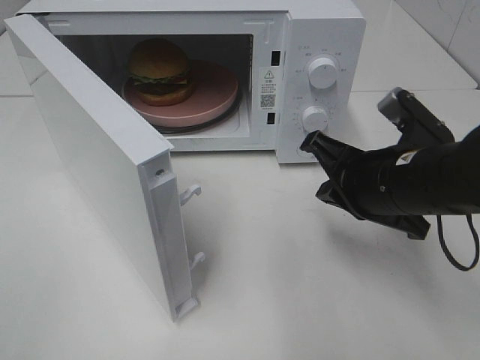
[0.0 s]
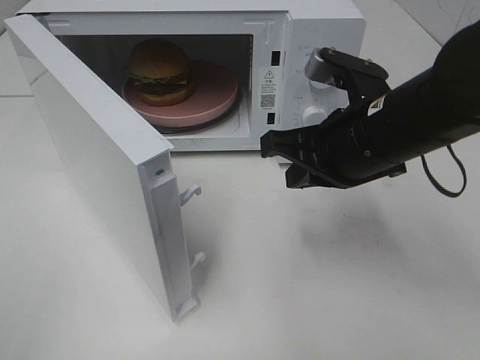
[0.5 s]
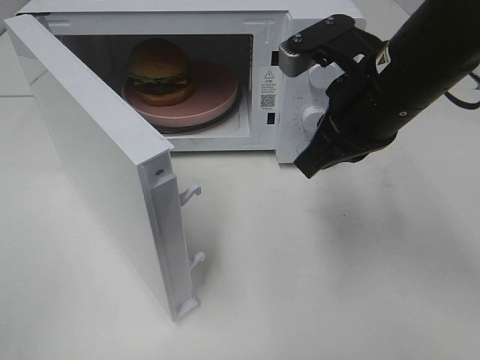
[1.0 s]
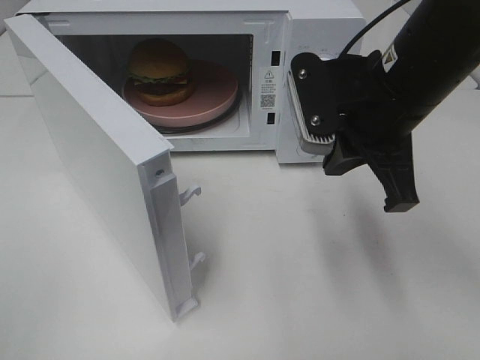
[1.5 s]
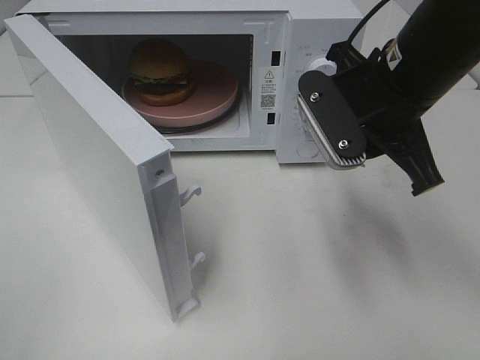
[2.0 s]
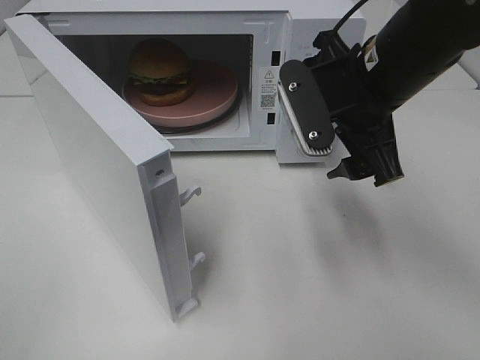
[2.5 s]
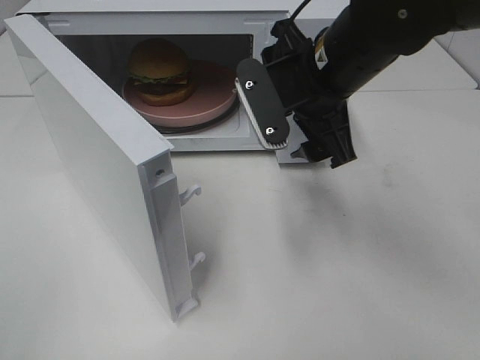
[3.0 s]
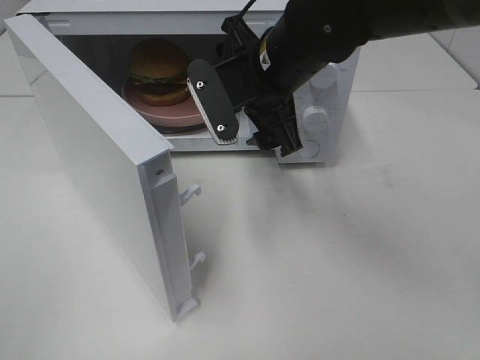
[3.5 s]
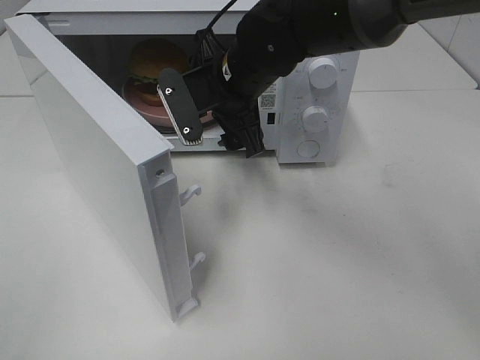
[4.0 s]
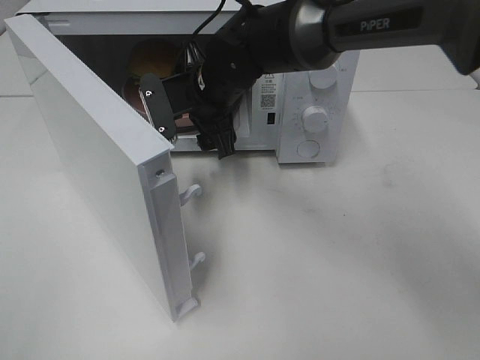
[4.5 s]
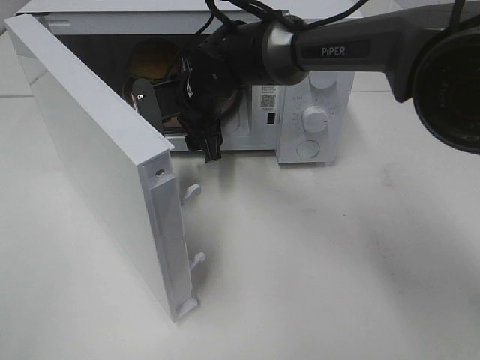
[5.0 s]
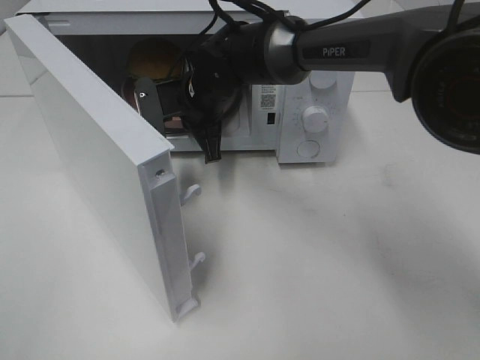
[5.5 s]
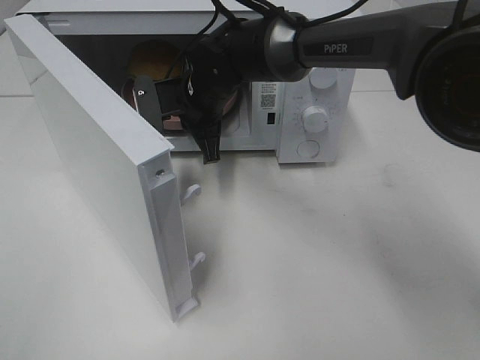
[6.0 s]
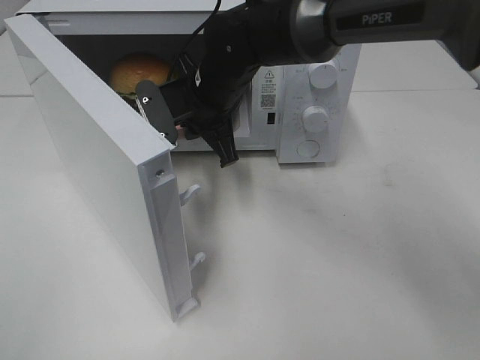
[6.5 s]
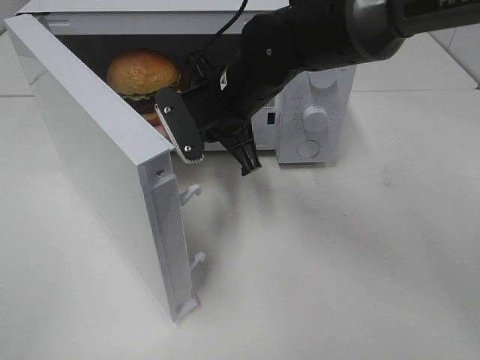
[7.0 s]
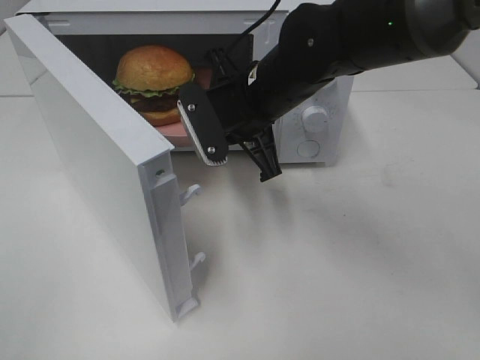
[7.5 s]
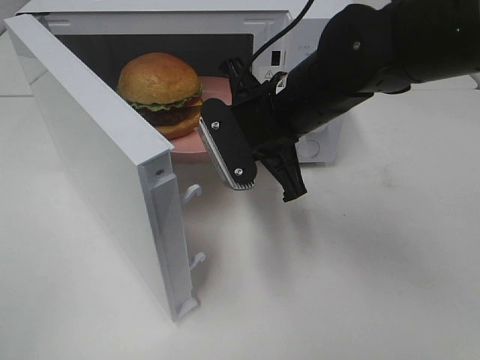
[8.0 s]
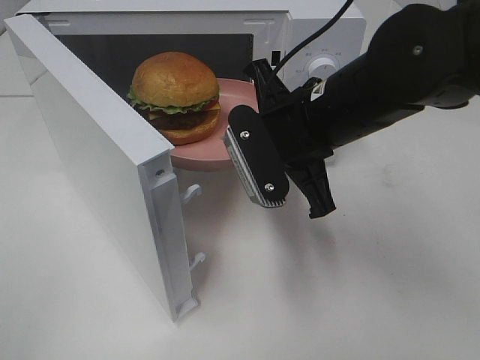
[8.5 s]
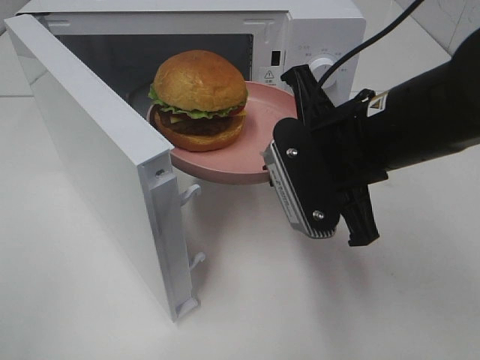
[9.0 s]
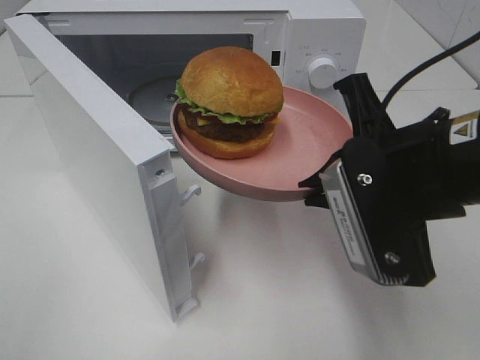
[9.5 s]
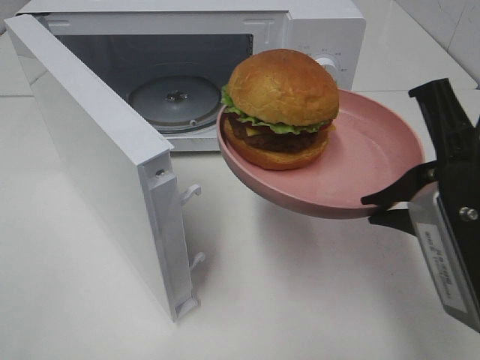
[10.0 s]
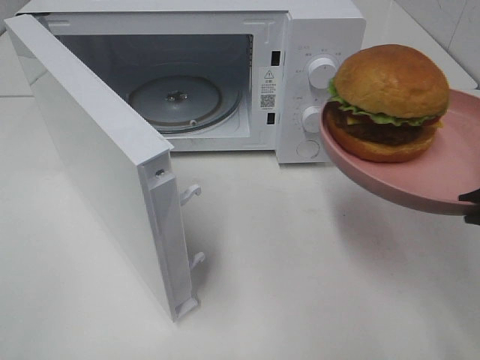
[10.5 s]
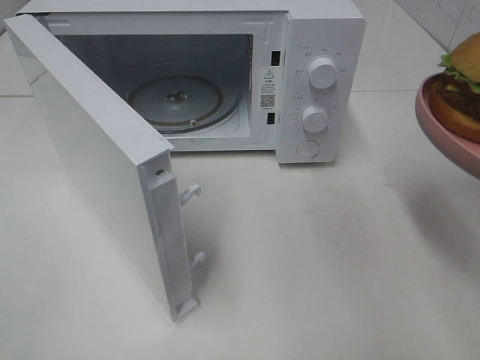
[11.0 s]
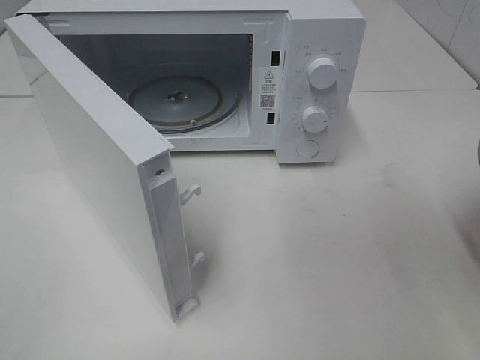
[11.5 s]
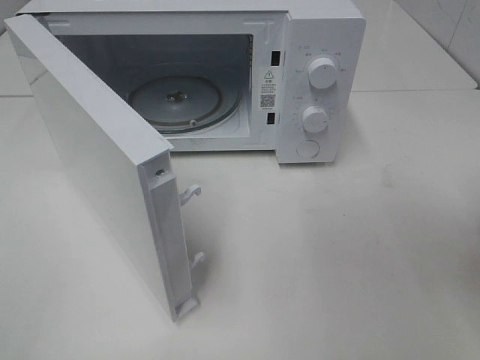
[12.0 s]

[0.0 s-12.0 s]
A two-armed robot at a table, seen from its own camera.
Task of the whole recording: Heat the burger.
Step, 0.0 to 5.0 s: Right hand: grab the plate with the hamburger.
0.0 to 2.0 s: The right gripper heads upward, covering some 10 cm.
2.0 to 4.0 s: The right gripper travels to the left, forward and downward by about 15 cm, and opens.
4.0 to 6.0 s: The right gripper moves forward, about 5 cm, and closes its fingers.
6.0 to 8.0 s: The right gripper moves backward, to the right and upward, approximately 15 cm.
8.0 to 10.0 s: The right gripper is displaced backward and to the right by about 20 cm.
10.0 to 12.0 s: The right gripper heads to the right, covering about 10 cm.

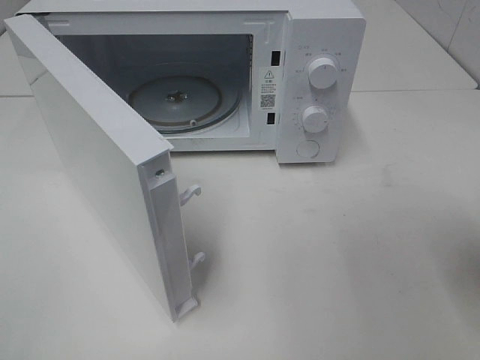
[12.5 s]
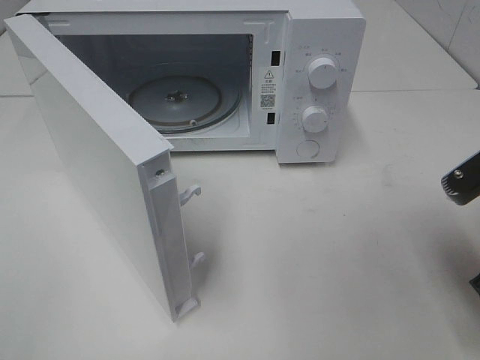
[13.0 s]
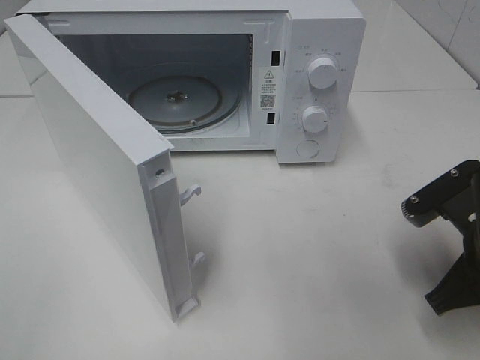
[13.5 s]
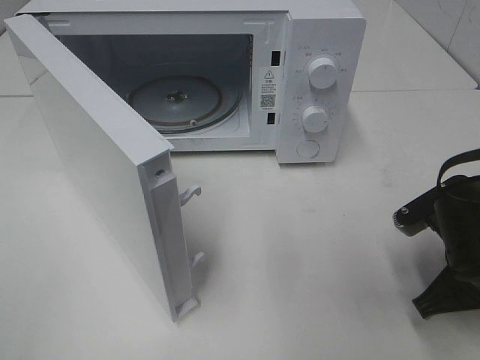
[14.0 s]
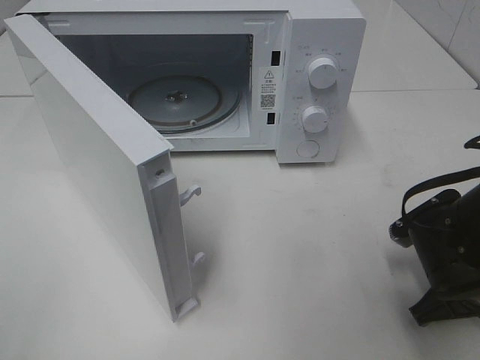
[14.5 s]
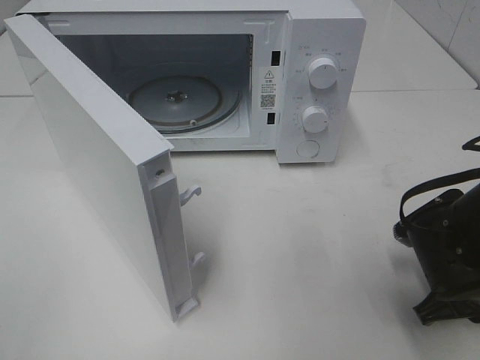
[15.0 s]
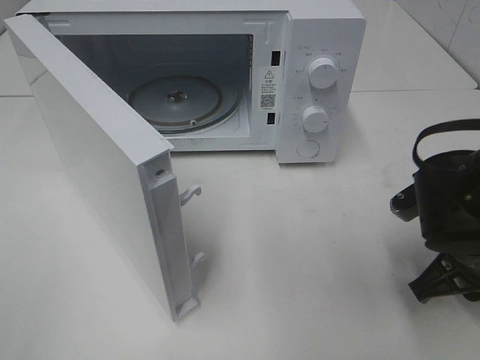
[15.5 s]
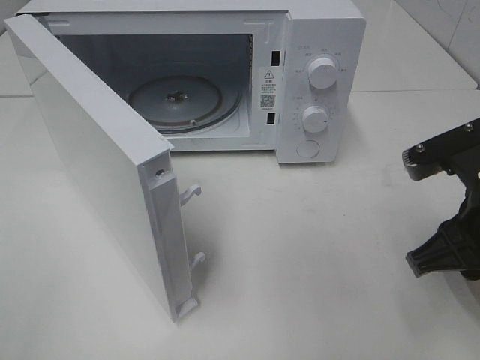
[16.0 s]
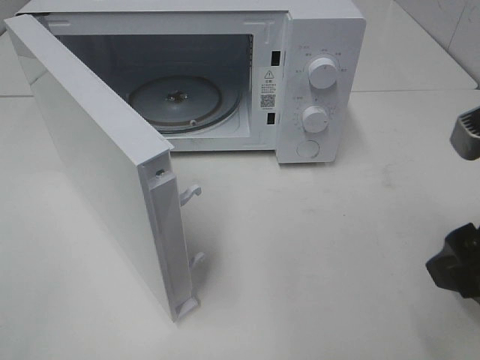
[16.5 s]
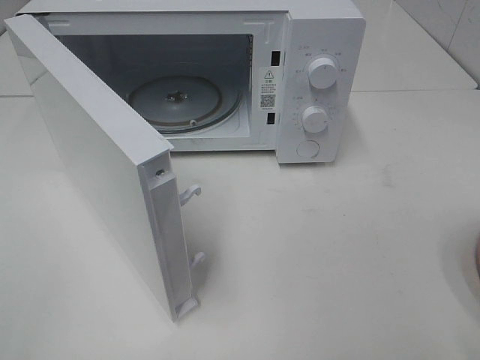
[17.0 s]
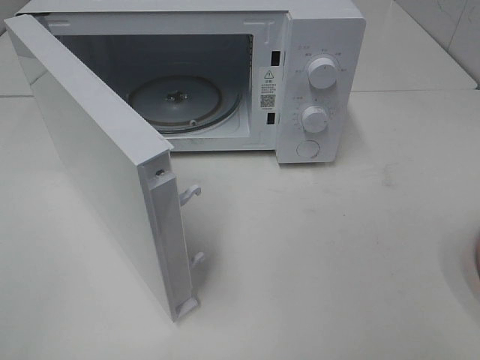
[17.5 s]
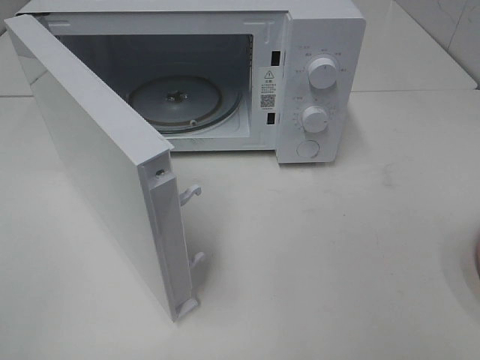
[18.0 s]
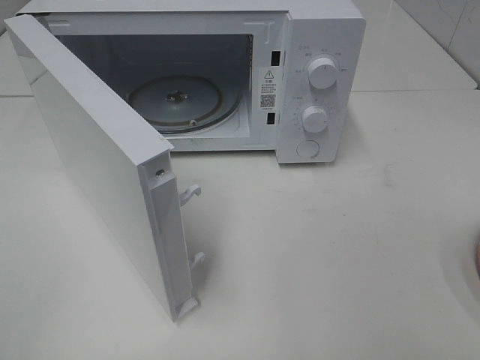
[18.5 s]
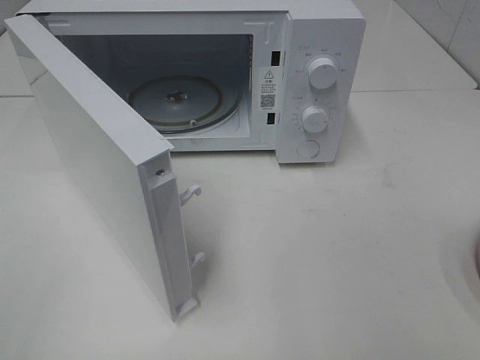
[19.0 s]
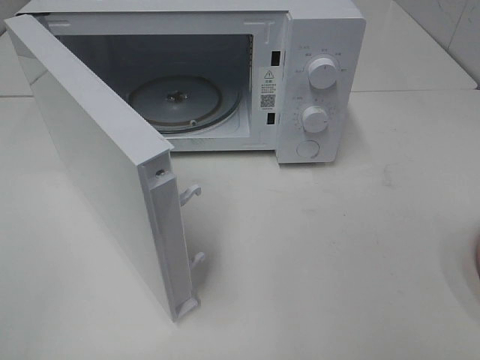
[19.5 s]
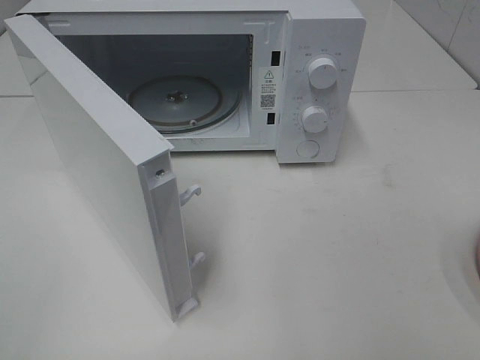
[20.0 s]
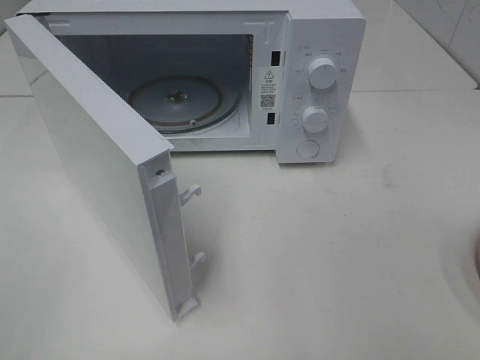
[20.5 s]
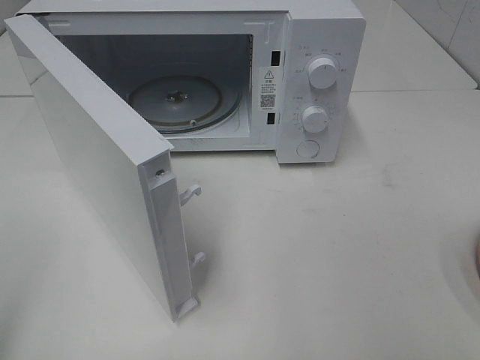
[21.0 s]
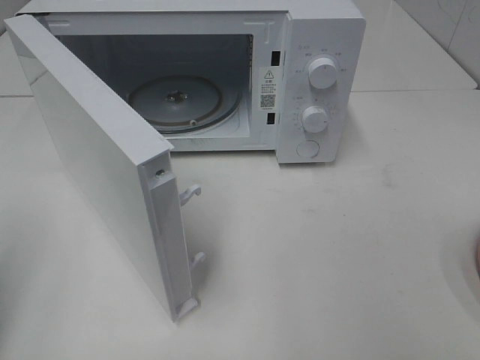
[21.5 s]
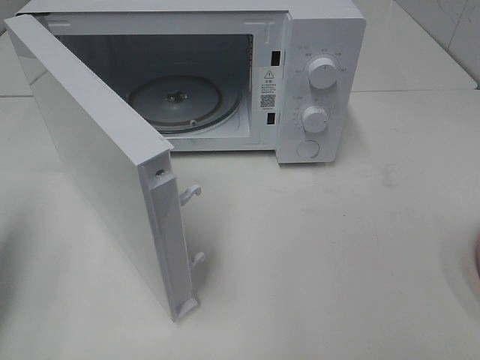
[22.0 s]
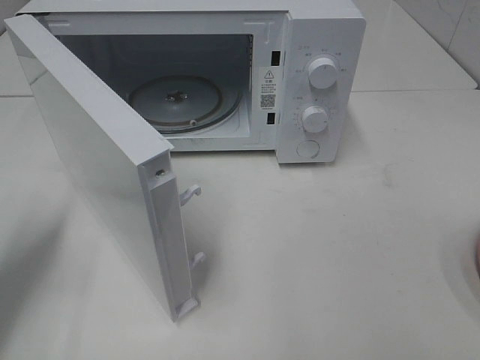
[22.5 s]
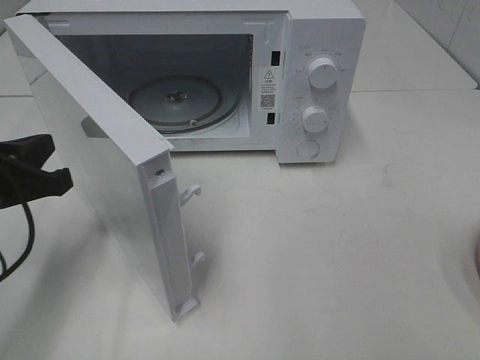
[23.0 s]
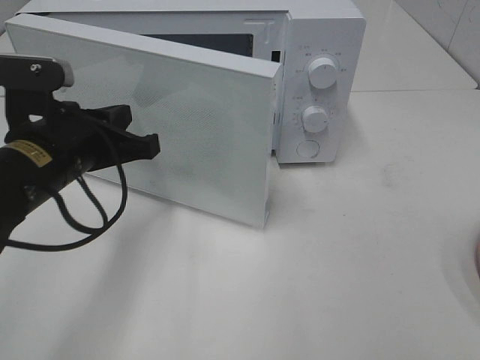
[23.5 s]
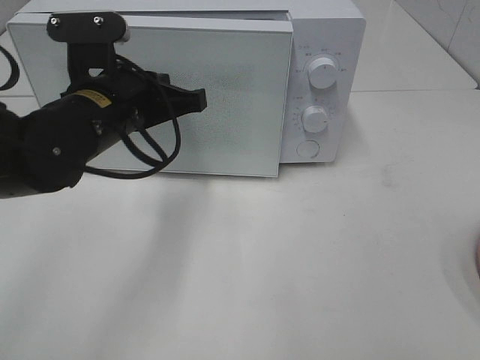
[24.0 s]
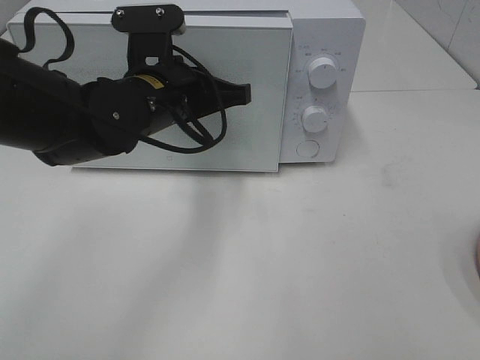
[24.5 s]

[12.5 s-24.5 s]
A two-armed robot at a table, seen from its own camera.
Task of the whole recording: Heat the burger.
Step, 12.5 to 15.0 s: Right hand: place the plate on the table.
12.5 to 14.5 s: The right gripper goes some 15 cm downward and forward.
14.5 to 16.5 s: The right gripper moves upward, about 15 cm, and opens up.
16.5 to 18.5 s: The right gripper shifts about 15 cm backward and to the right.
18.5 to 20.5 s: Both grippers stay about where they are.
20.5 to 22.5 s: The left gripper goes some 25 cm forward and downward, and closes.
22.5 to 24.5 s: The left gripper is displaced to the right and forward by roughly 25 cm.

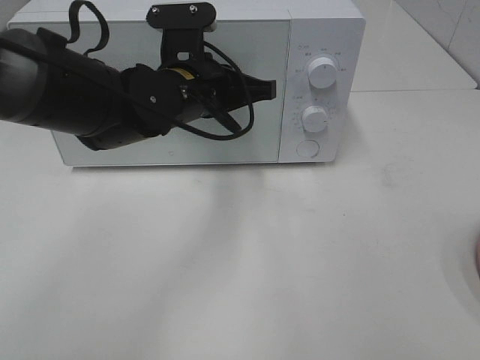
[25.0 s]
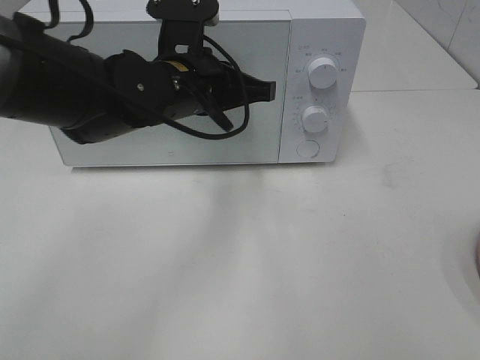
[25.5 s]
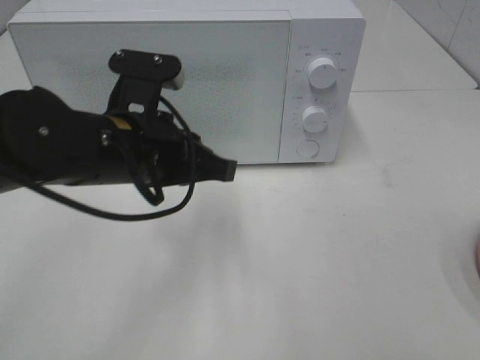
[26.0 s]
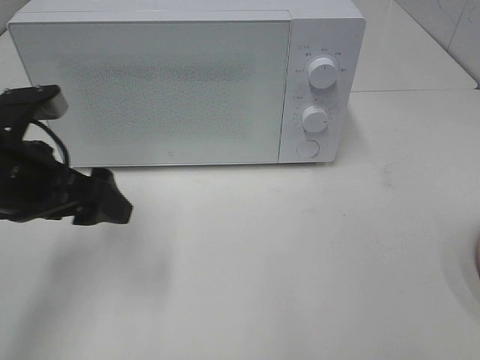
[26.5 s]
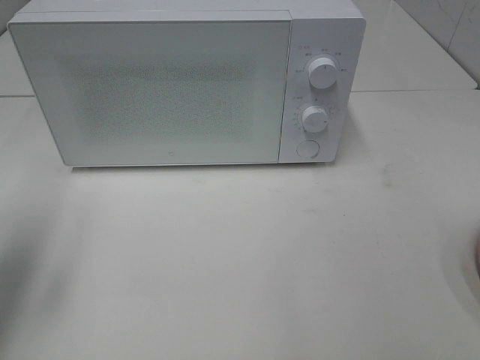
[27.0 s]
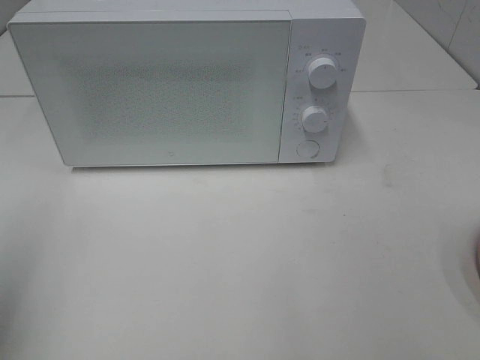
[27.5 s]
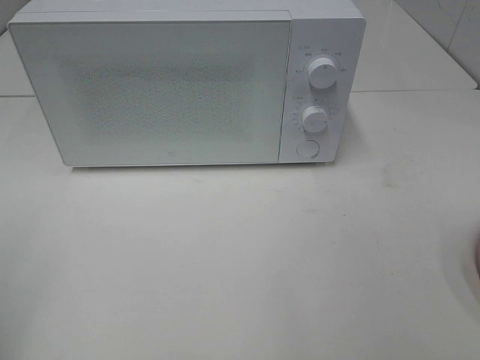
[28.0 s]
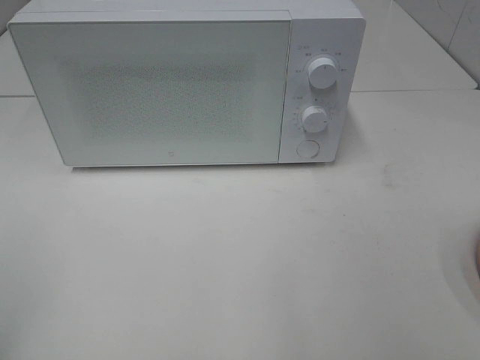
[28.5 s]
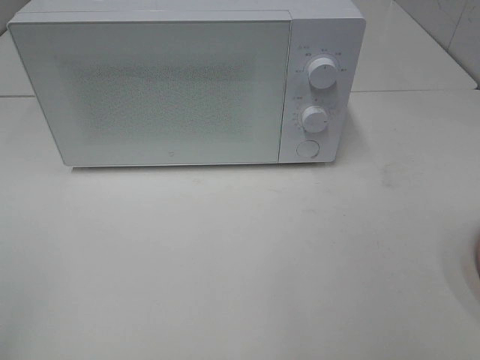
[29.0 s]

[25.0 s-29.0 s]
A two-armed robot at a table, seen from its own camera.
Task of the whole recording: Heat the burger.
25.0 to 27.0 s: The left gripper is displaced to the left and backward by approximately 30 cm, and opens its fingers.
27.0 to 29.0 s: The left gripper is displaced backward by about 20 cm.
